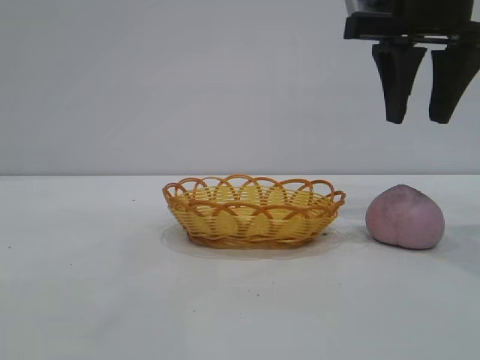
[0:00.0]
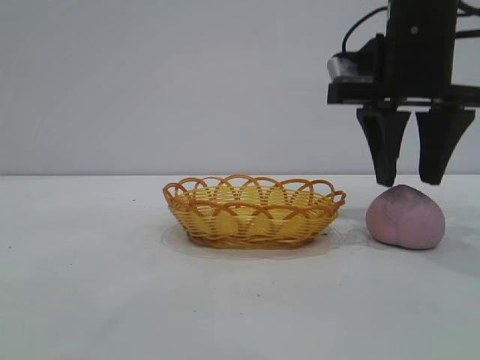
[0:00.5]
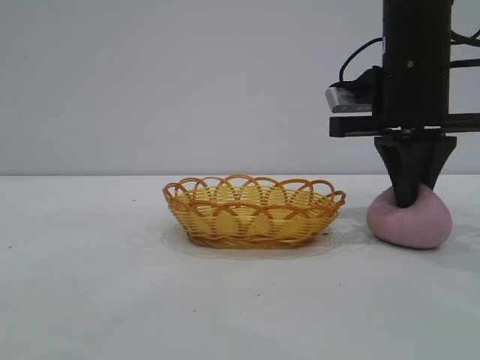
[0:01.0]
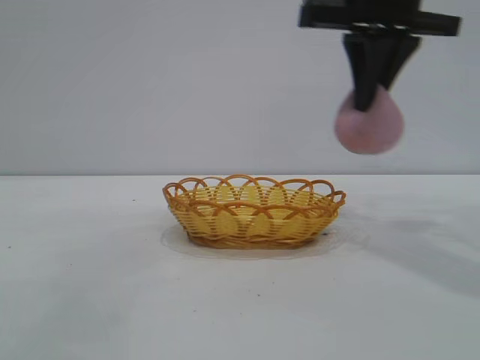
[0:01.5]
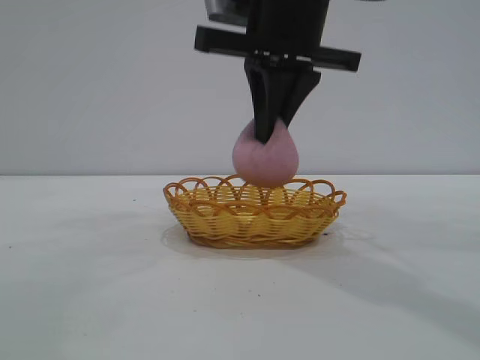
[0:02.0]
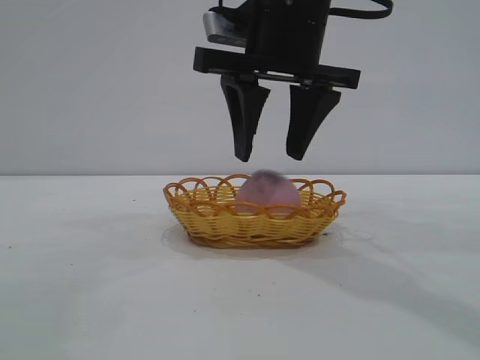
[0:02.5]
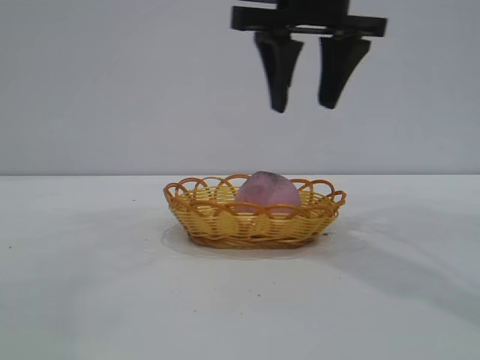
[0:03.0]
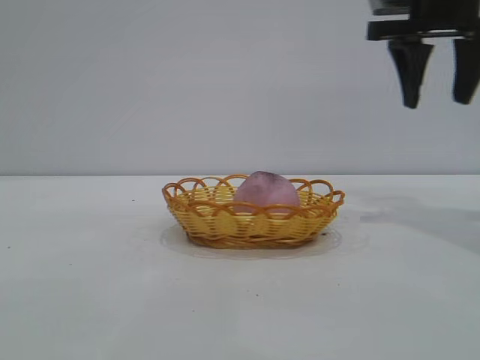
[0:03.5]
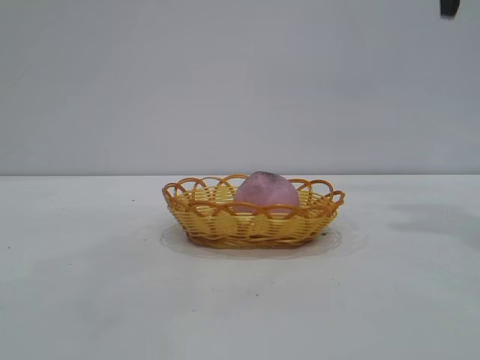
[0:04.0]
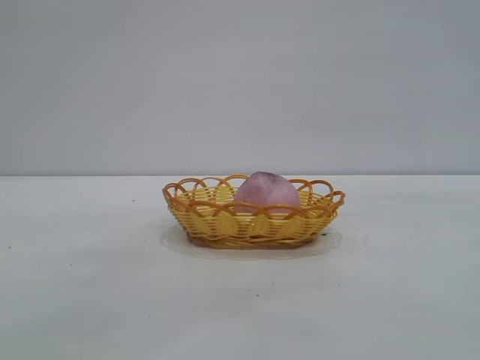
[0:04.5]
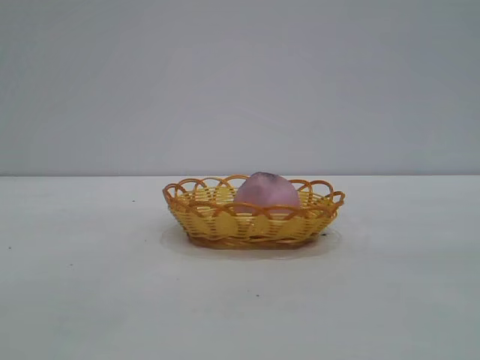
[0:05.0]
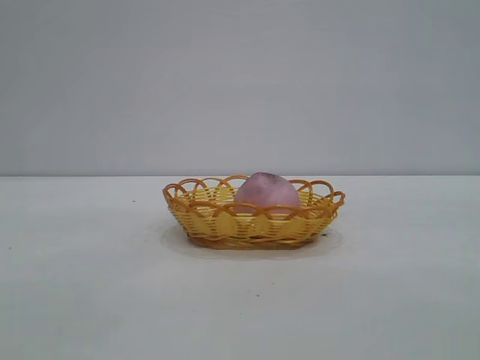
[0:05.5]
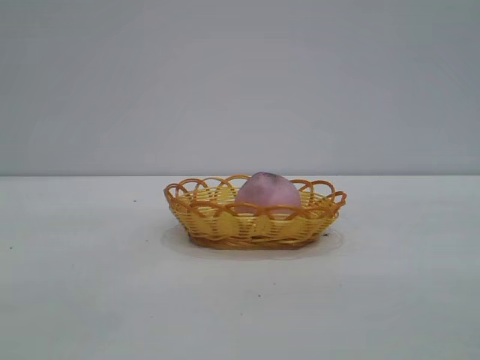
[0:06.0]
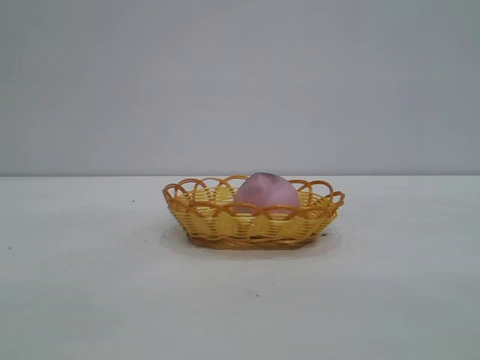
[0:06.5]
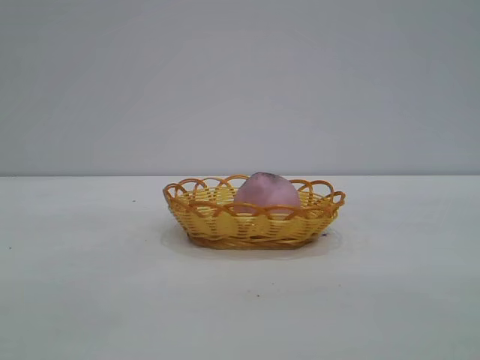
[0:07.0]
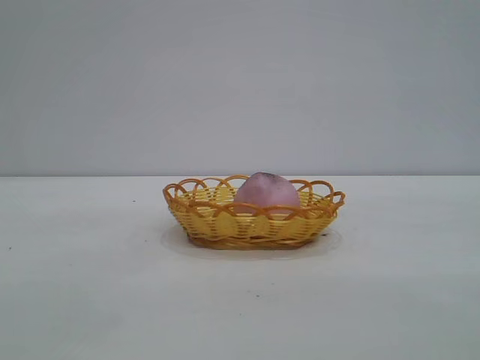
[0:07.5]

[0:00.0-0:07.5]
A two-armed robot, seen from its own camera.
Task of the whole recording: pick up the peach and put it into the basket.
Step, 0:01.5 to 0:03.0: place the peach into the basket.
